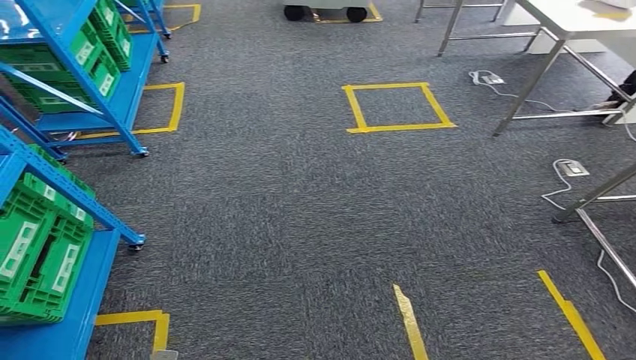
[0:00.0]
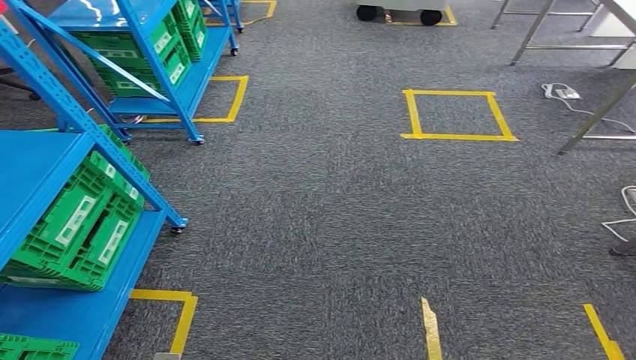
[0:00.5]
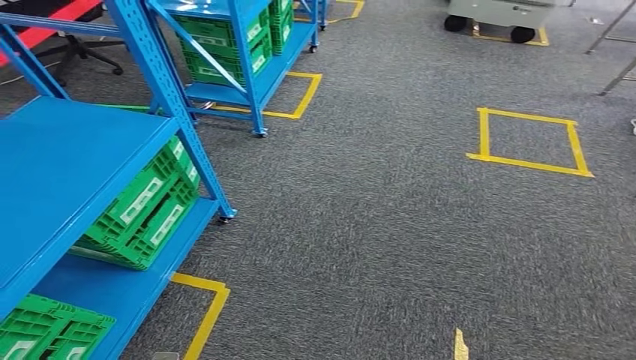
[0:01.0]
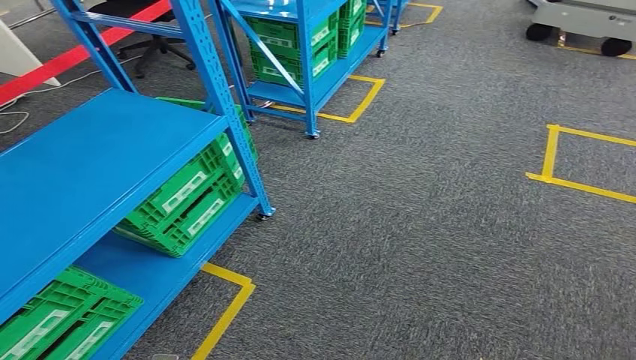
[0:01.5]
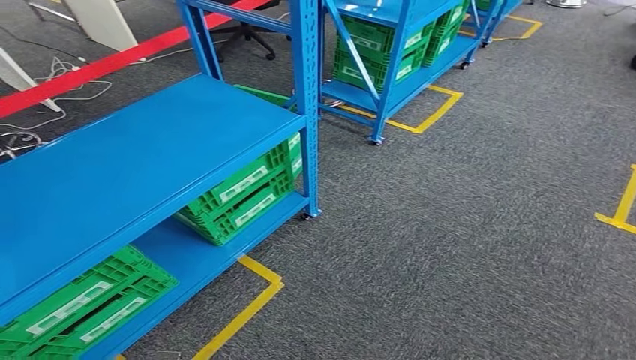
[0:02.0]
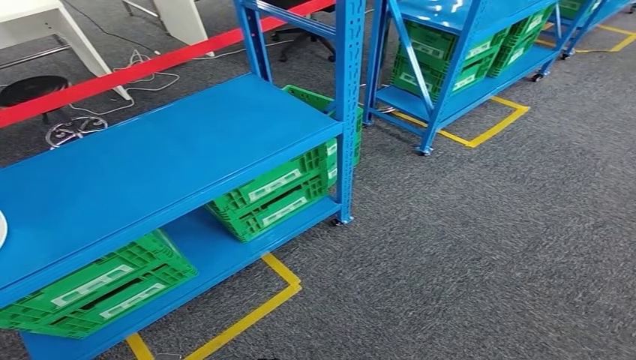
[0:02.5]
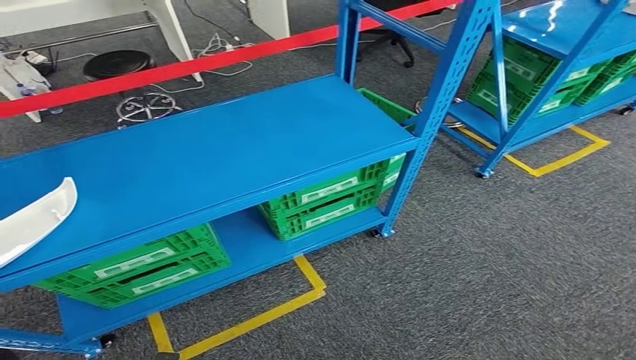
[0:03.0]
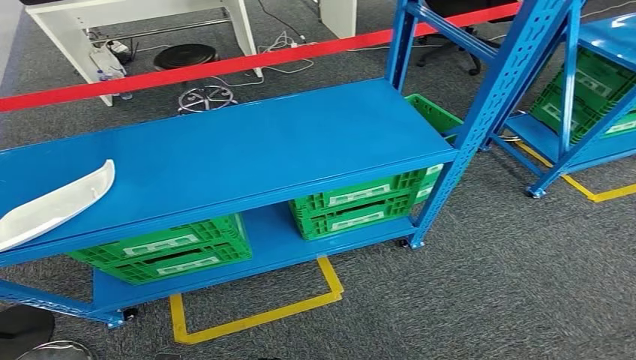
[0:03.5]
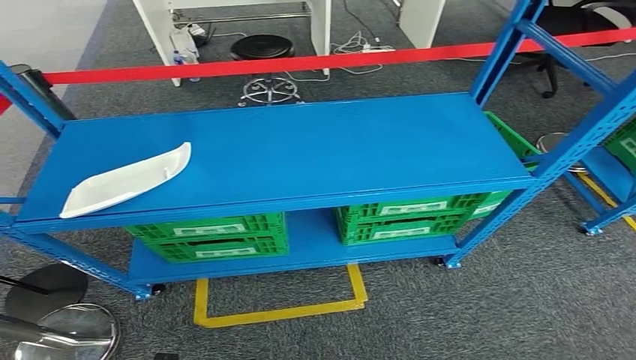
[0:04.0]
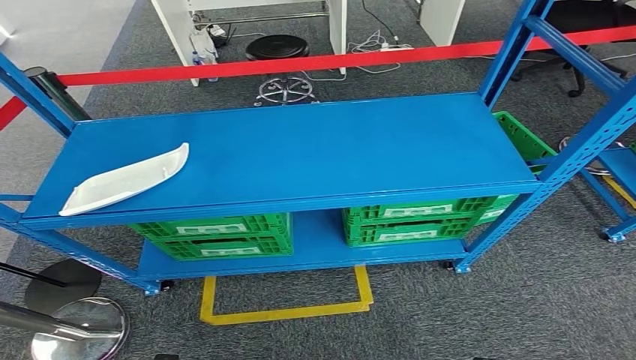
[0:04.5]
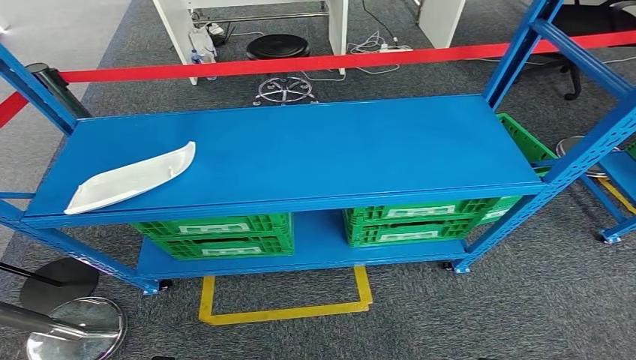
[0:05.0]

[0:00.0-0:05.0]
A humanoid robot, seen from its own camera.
Step, 0:00.0 to 0:05.0: Return to the initial position at the workbench.

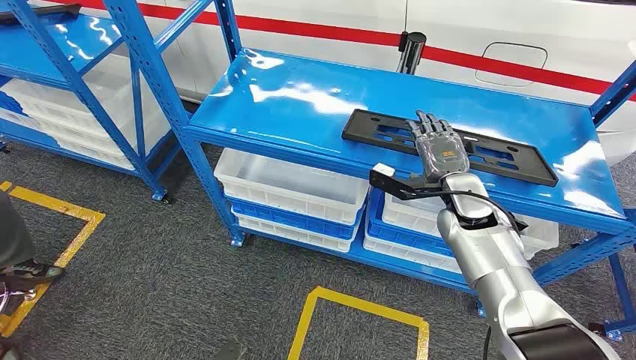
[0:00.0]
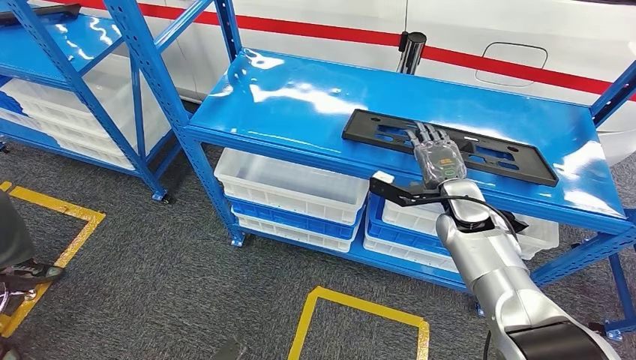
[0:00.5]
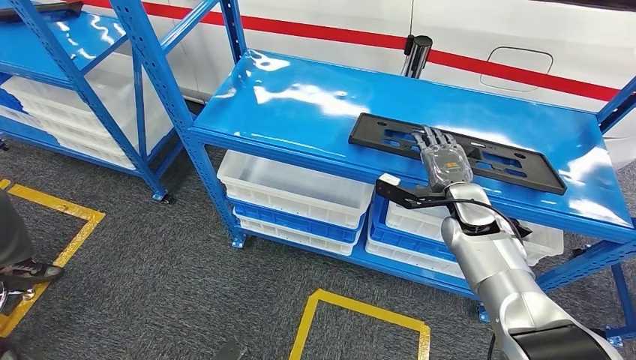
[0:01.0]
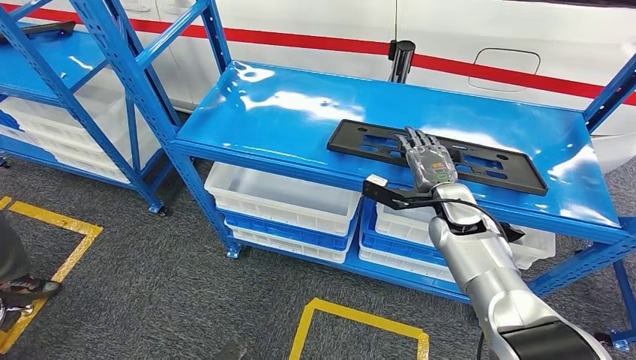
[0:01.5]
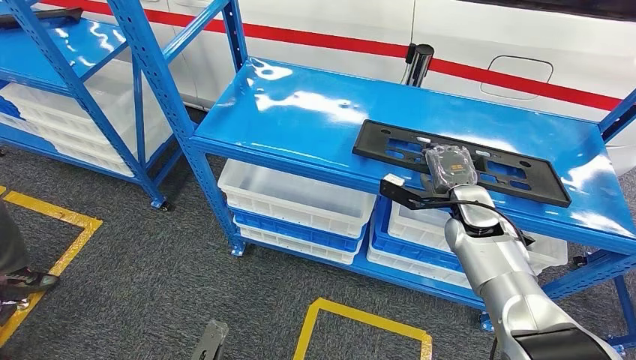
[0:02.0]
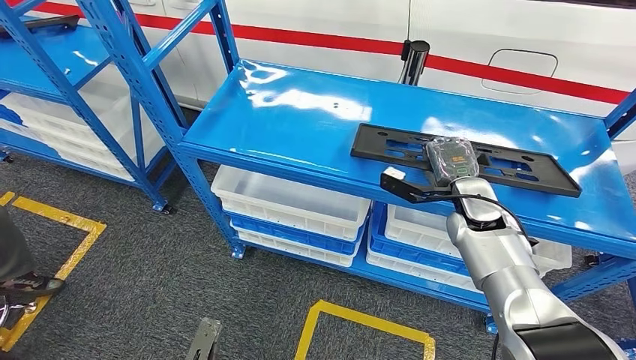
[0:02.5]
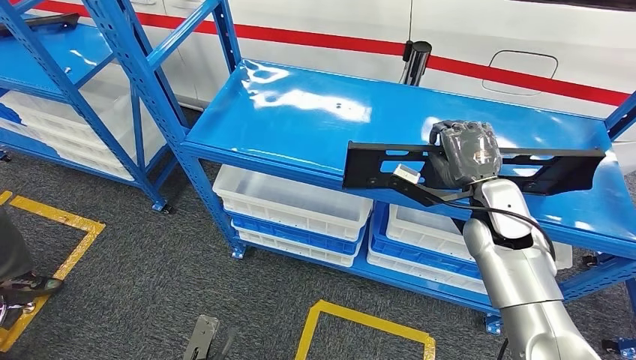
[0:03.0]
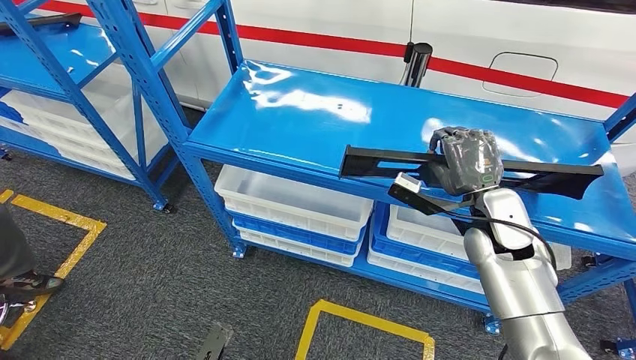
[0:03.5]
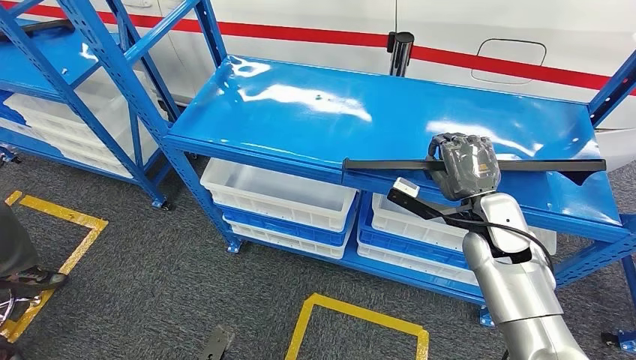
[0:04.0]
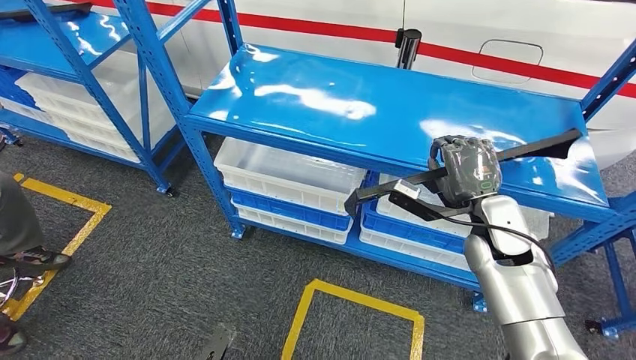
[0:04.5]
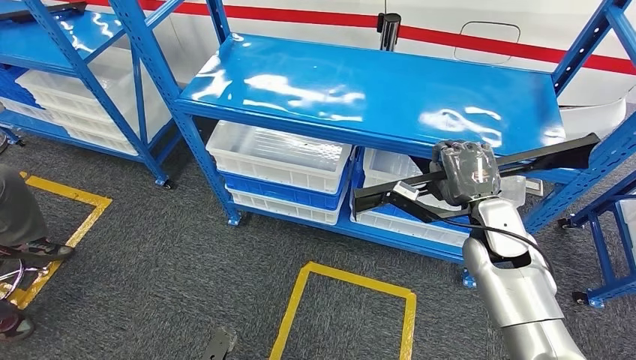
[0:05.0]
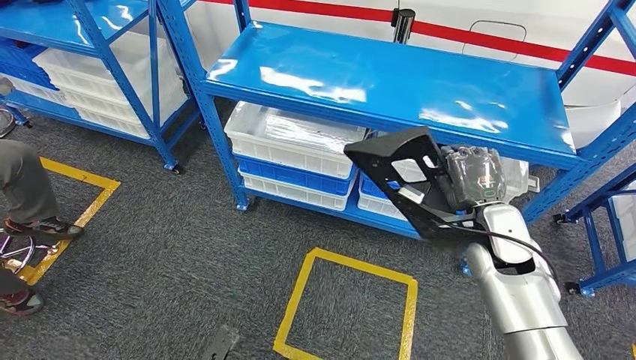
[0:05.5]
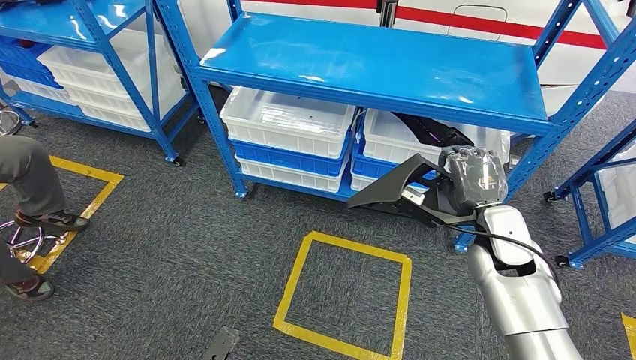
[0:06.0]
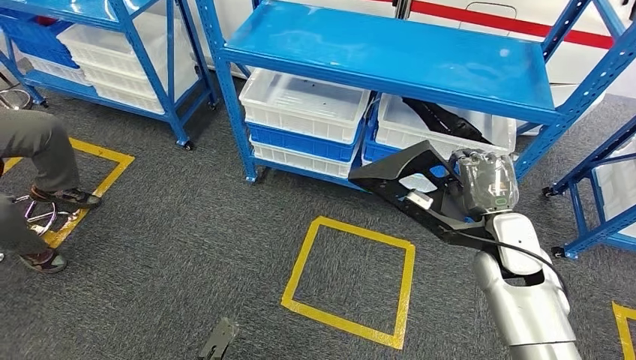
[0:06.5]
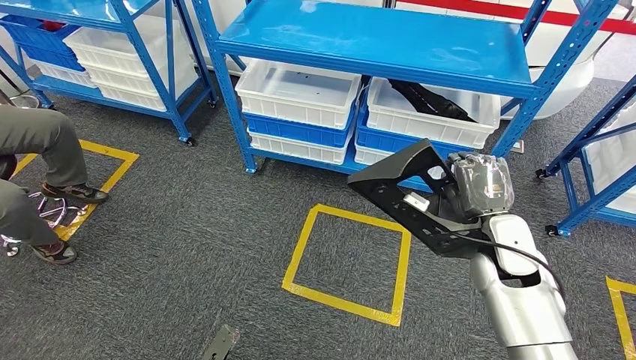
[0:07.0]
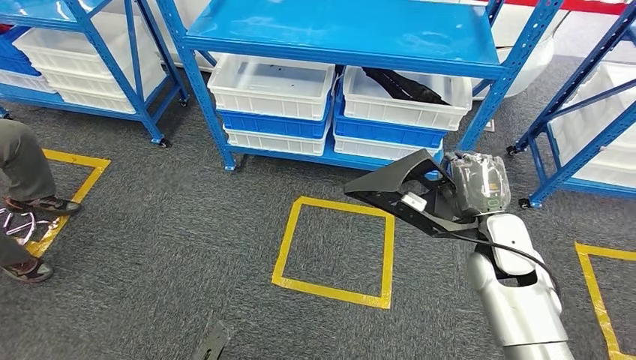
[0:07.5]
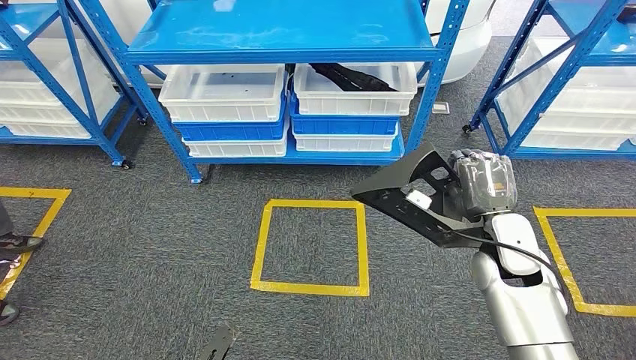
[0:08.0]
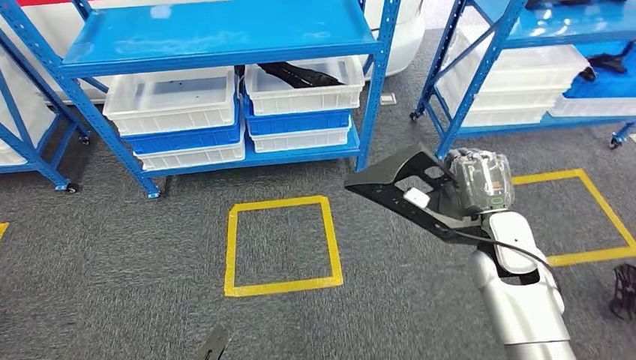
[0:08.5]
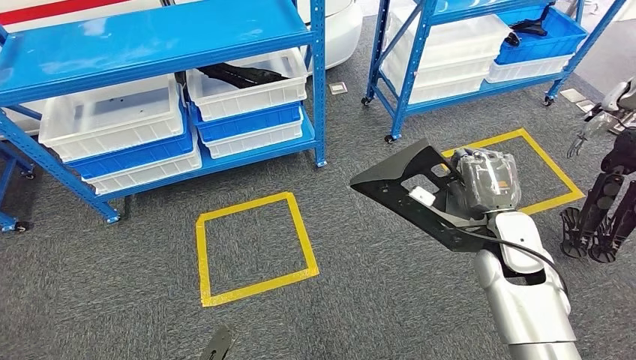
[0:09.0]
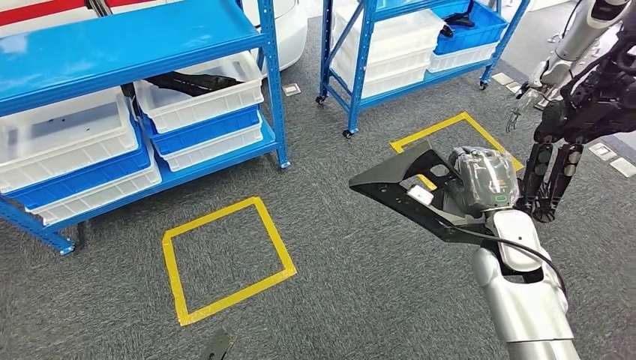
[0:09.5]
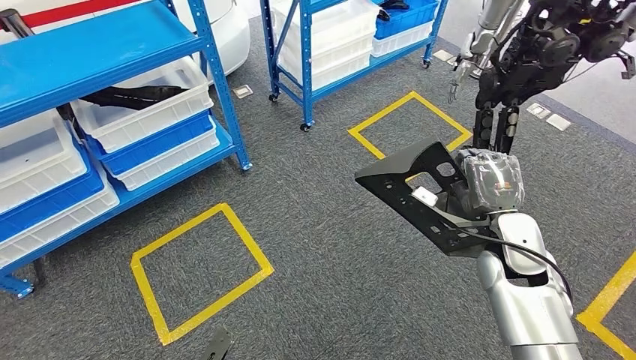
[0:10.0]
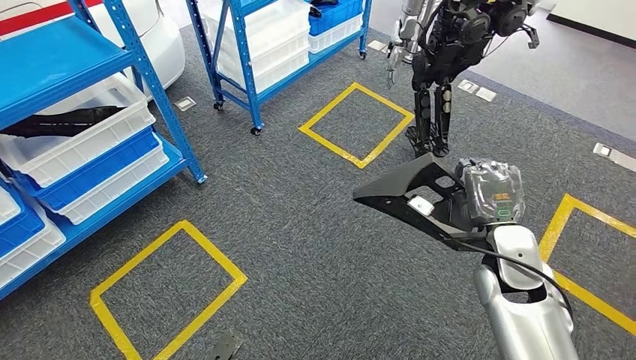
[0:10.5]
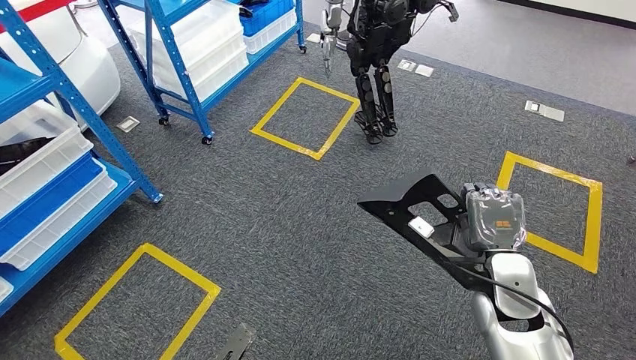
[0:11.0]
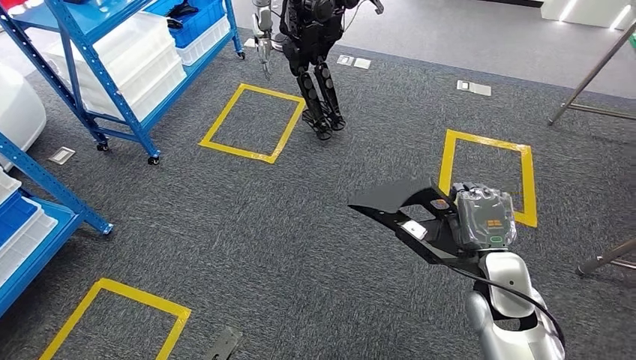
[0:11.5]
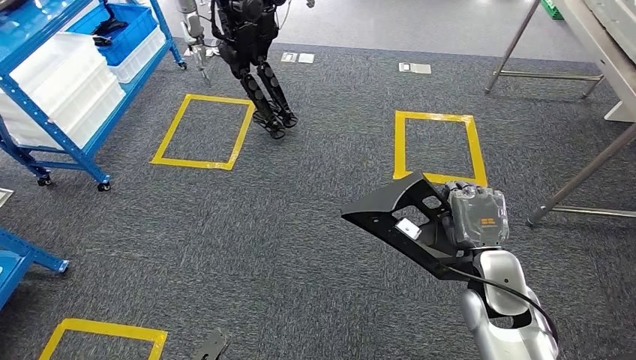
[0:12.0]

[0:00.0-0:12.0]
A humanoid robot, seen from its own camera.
Step, 0:00.0 to 0:04.5: Pick up the large parts from the shelf.

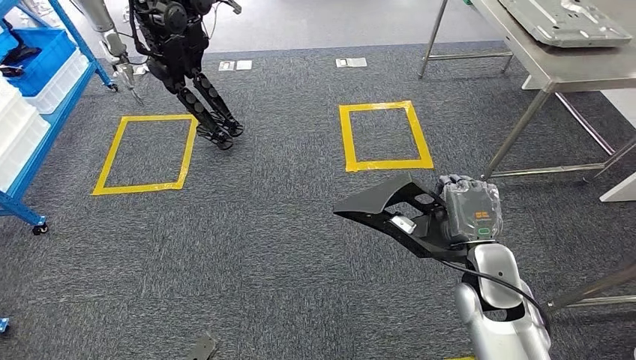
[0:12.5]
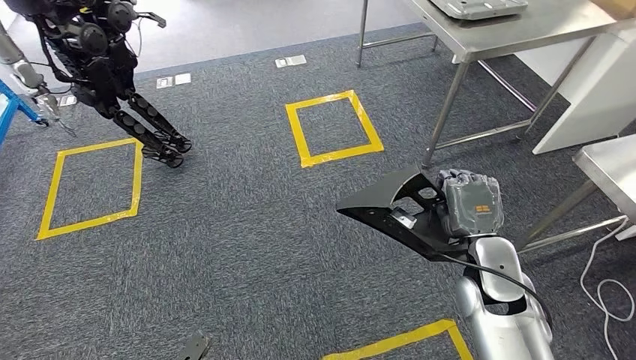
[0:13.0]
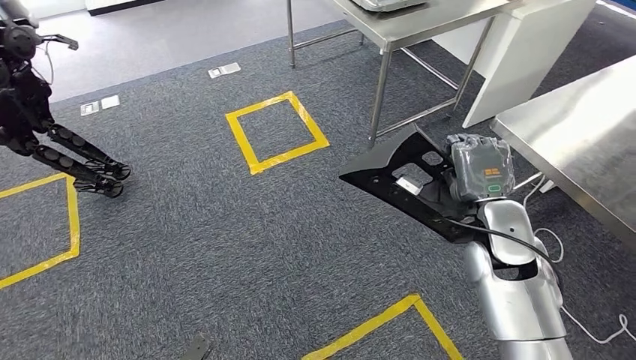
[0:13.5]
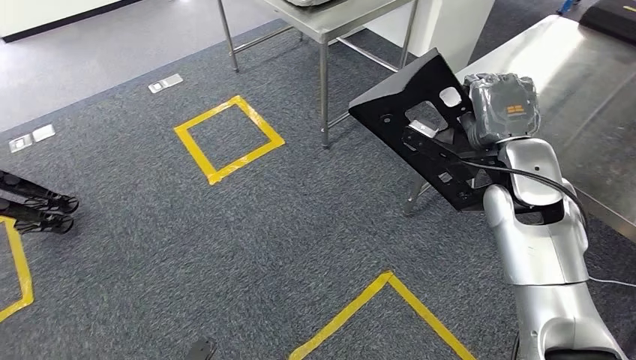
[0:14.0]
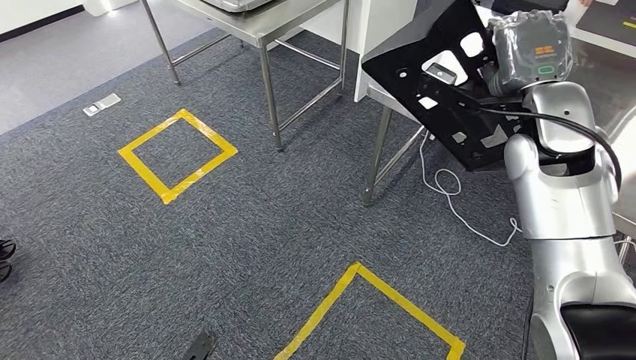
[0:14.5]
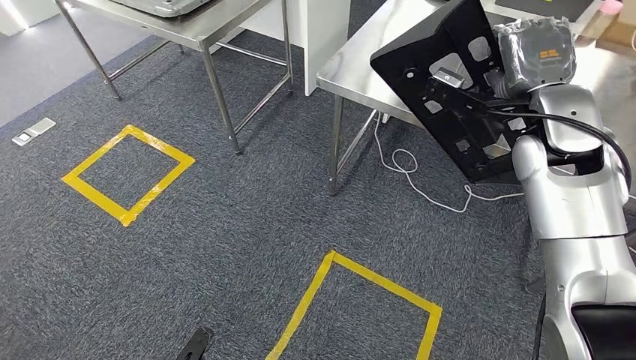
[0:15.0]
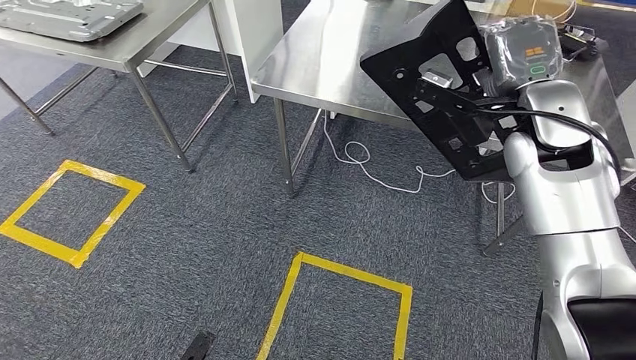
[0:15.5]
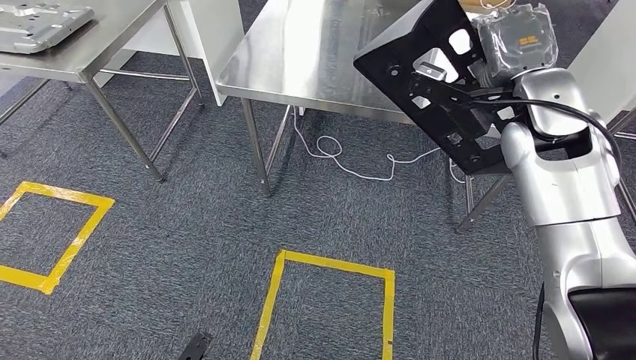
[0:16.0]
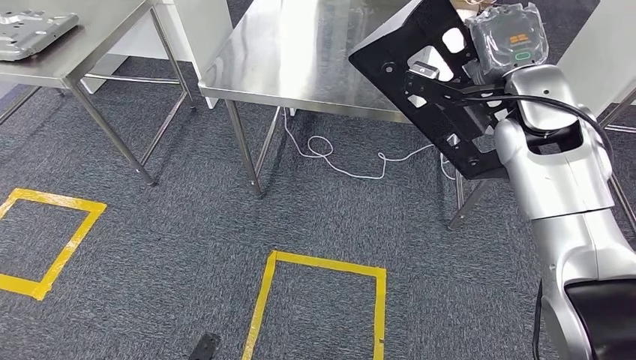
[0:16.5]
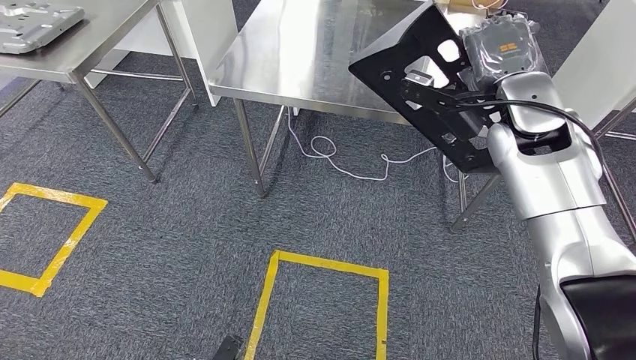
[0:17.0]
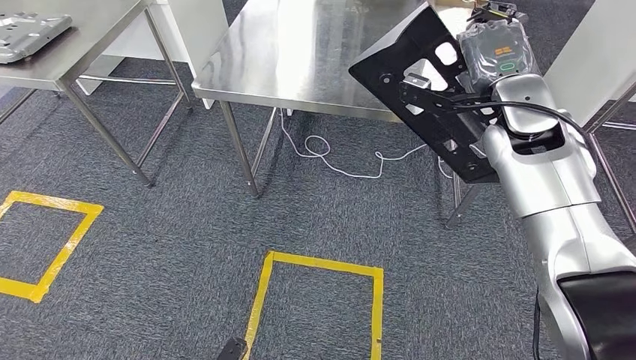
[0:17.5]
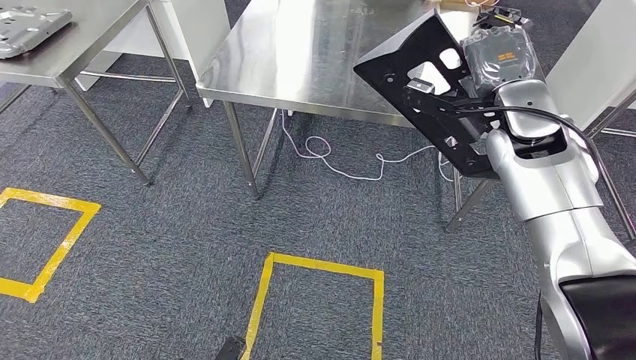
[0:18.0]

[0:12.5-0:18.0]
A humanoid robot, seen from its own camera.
Step, 0:12.5 to 0:17.5: Move the large parts to the workbench.
